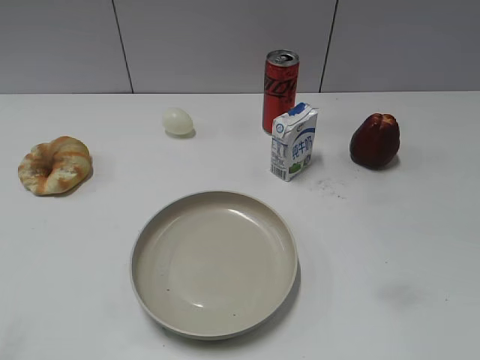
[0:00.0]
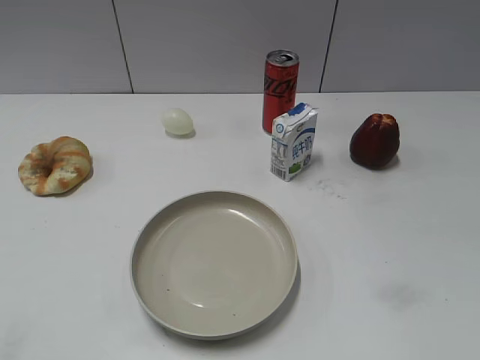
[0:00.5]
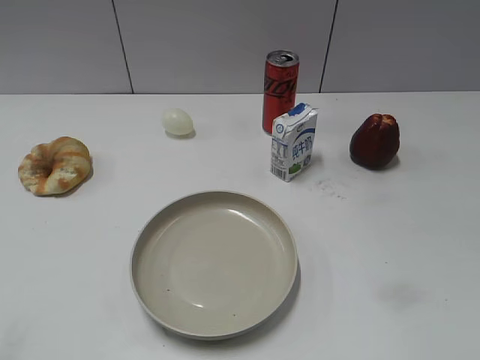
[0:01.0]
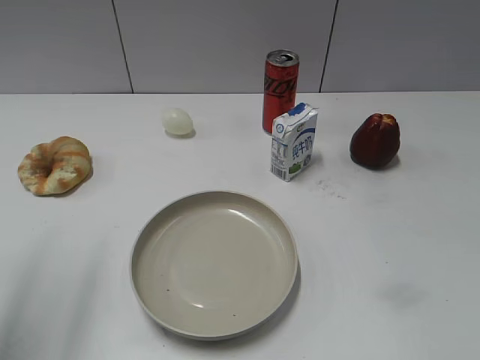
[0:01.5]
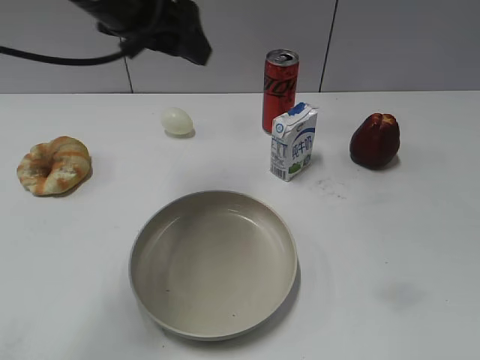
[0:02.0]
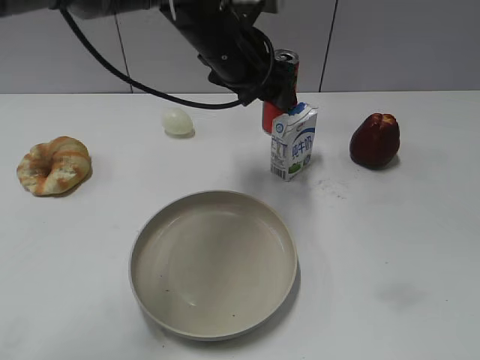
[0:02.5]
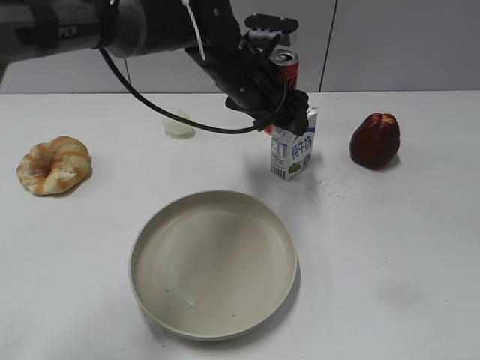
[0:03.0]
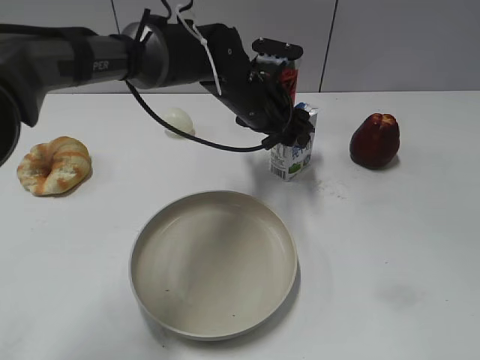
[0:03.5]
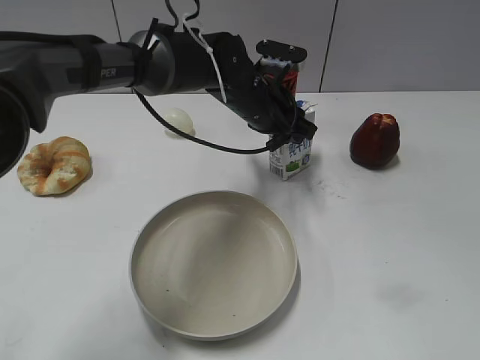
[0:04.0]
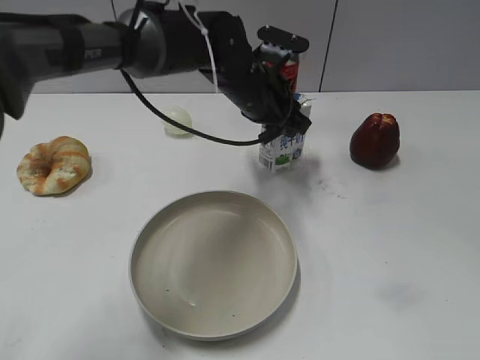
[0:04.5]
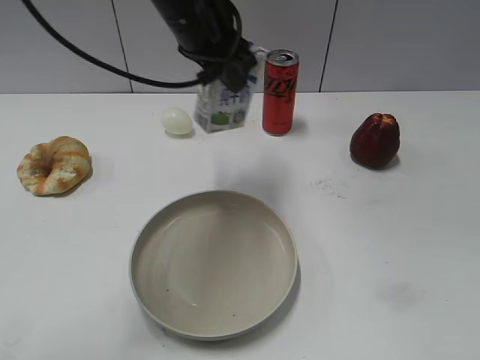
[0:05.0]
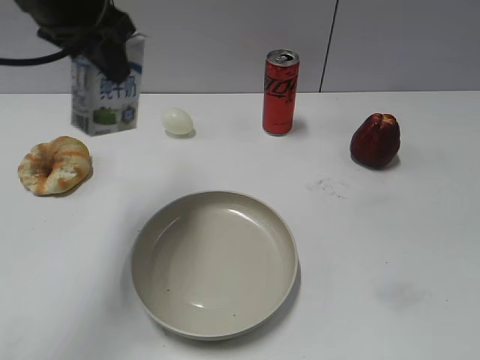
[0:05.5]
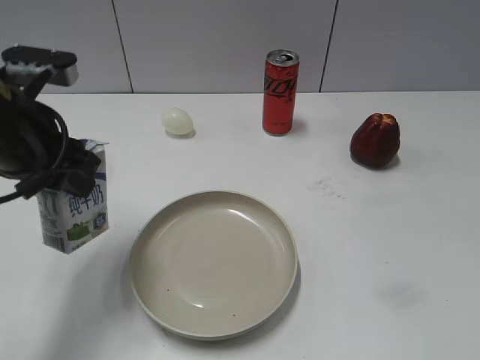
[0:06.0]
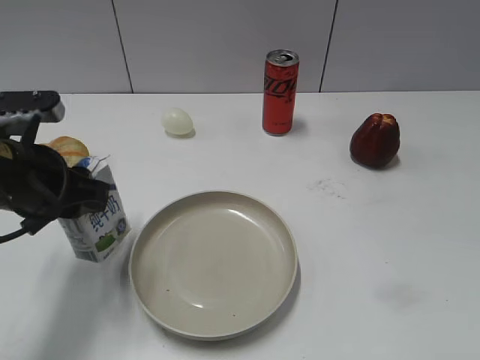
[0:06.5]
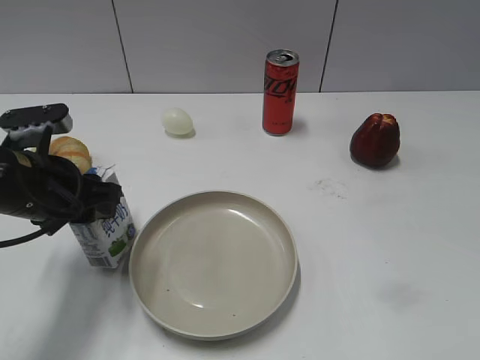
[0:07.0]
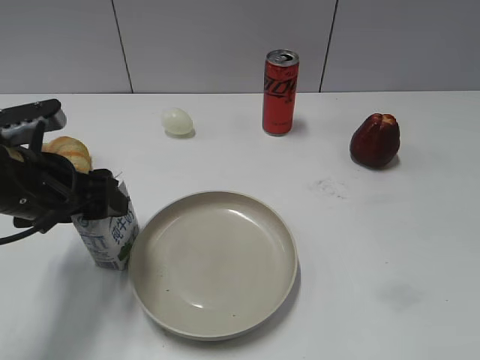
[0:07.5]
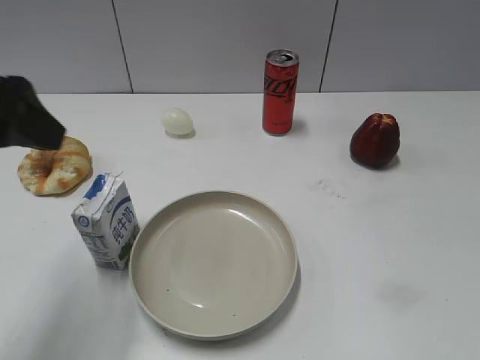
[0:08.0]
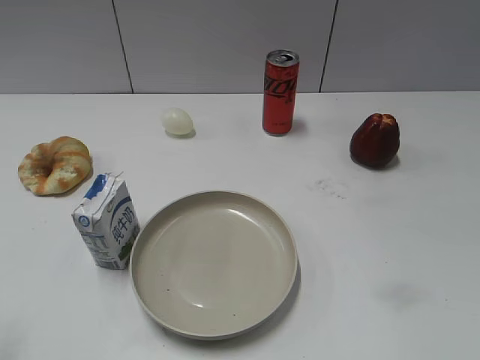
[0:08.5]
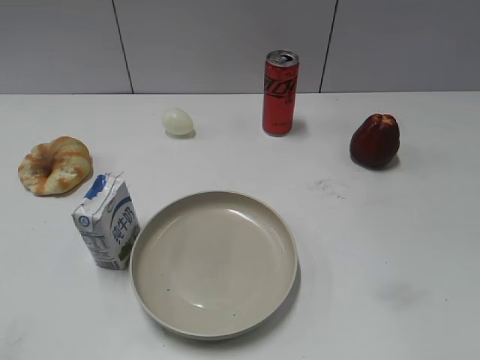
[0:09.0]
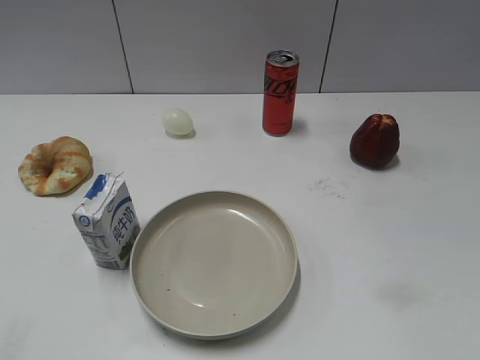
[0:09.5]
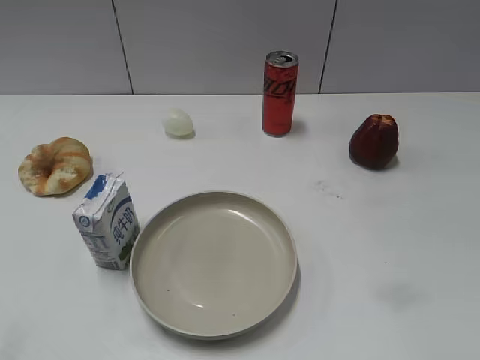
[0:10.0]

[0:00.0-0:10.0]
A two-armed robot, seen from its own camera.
Step, 0:01.0 to 0:04.0: Grasp the milk with left gripper.
Step, 0:04.5 to 0:07.5: Place the milk on the table with left gripper.
0:02.0 to 0:04.0: The left gripper travels downward, to the right and forward by roughly 25 cm, and closes its fingers.
0:04.0 to 0:06.0: The left gripper shifts some 30 cm to the left, backward and upward.
0:06.0 to 0:08.0: The left gripper heads backward and upward, covering roughly 10 cm, and opens.
0:08.0 to 0:10.0: The left gripper shifts approximately 25 cm backward and to the left.

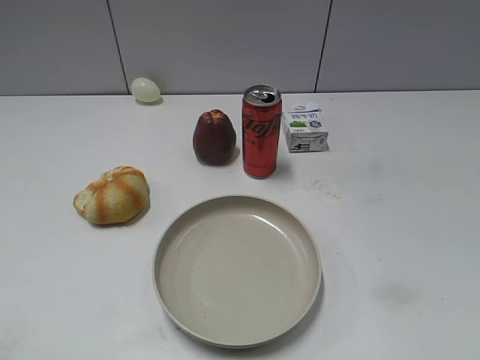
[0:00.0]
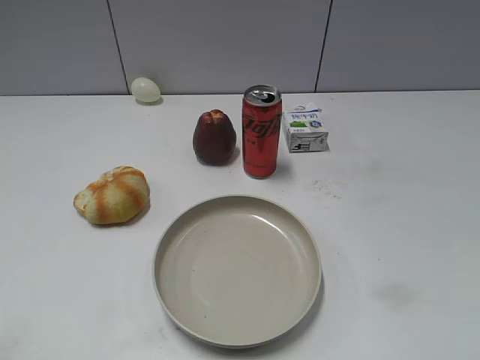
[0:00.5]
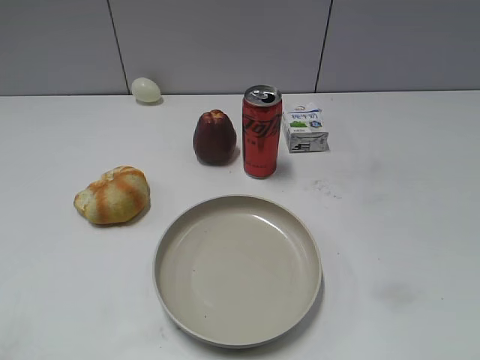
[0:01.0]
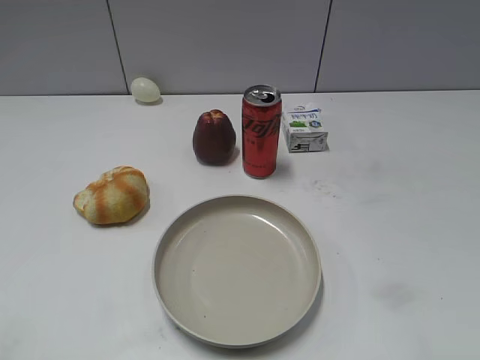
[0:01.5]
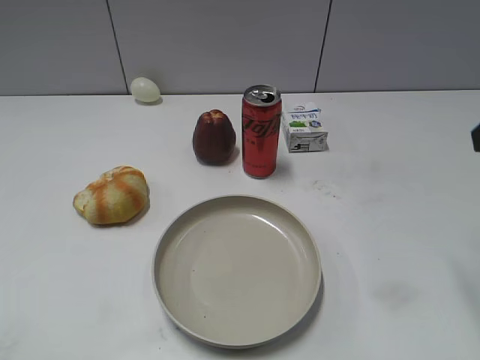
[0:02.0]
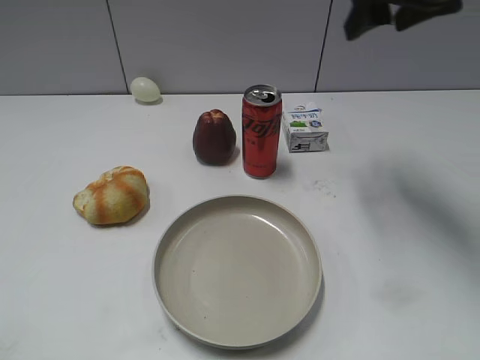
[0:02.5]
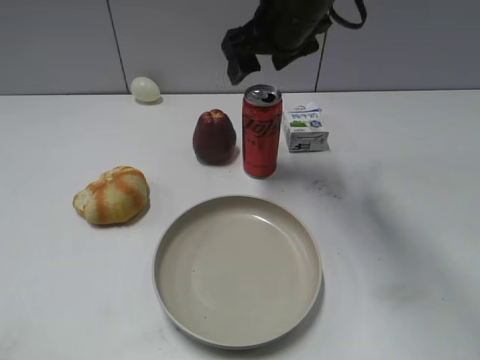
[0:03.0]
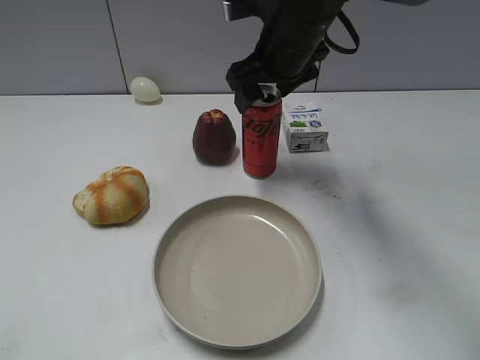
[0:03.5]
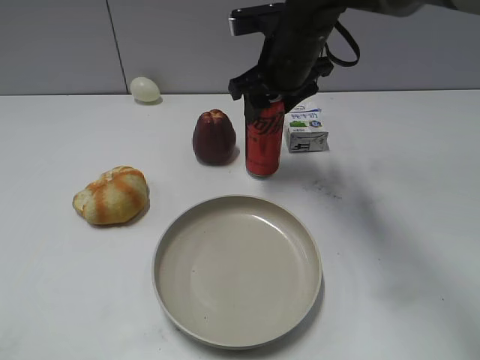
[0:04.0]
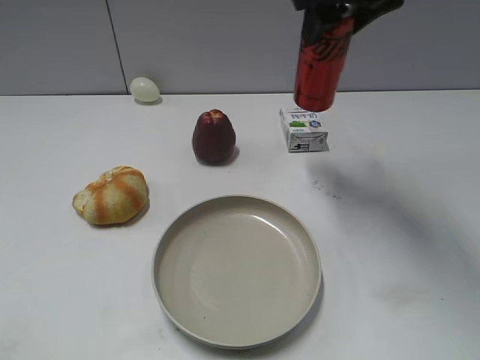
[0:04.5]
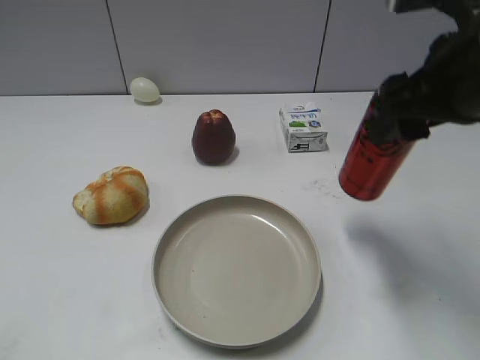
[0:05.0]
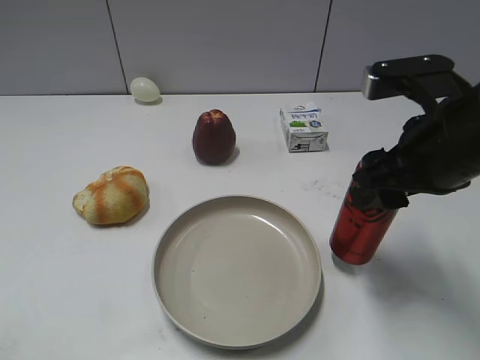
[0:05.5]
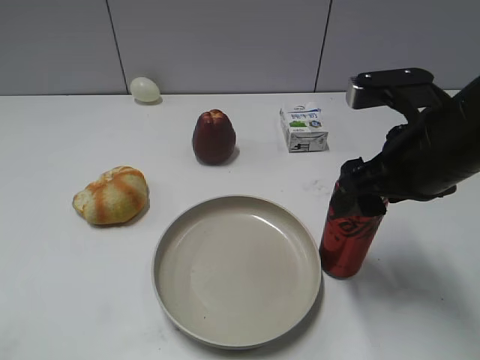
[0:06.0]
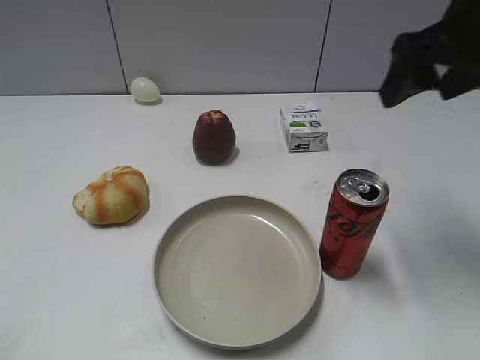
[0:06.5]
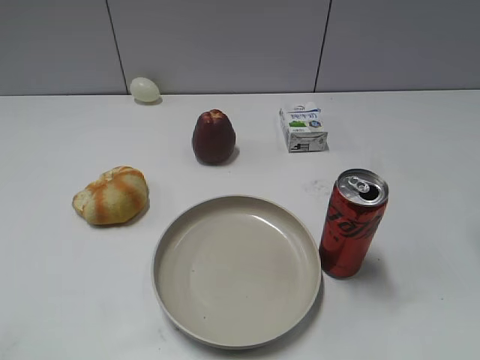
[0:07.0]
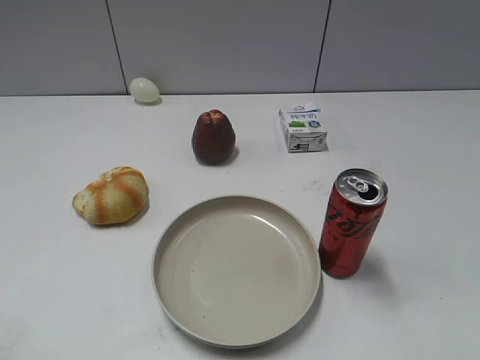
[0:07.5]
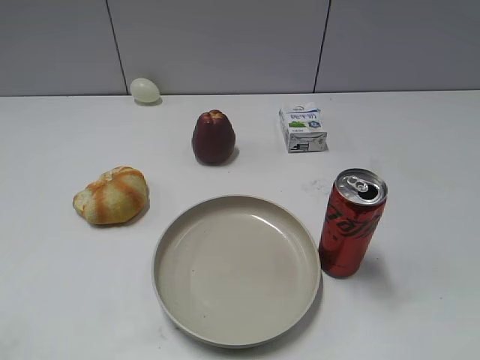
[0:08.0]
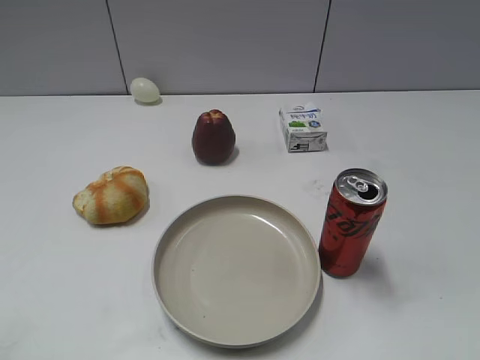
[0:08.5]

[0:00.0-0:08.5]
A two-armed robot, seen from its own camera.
Step, 0:01.5 to 0:03.5: Grasp the cola with right gripper.
Step, 0:04.5 to 0:06.0: Place the cola on the table with right gripper.
0:02.0 to 0:04.0: The right gripper heads forward, to the left and downward, covering some 30 cm, and closes.
0:04.0 to 0:06.5: The right gripper heads to the right, backward and upward, covering some 20 cm, and opens up.
0:06.5 to 0:08.5: The right gripper goes roughly 30 cm backward, and closes its fingers.
